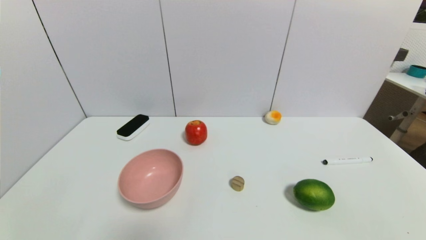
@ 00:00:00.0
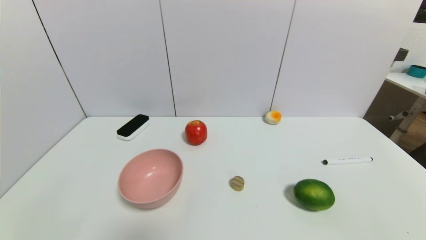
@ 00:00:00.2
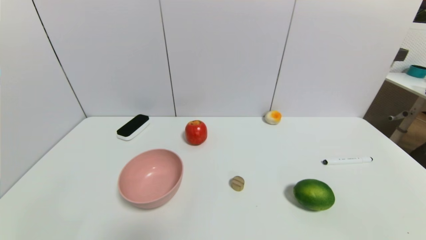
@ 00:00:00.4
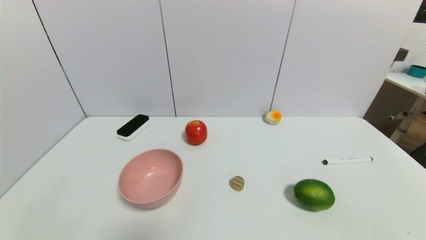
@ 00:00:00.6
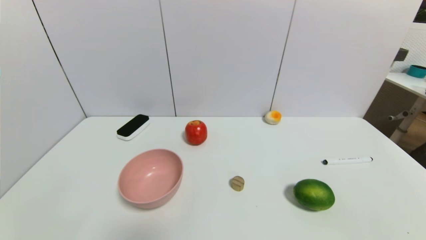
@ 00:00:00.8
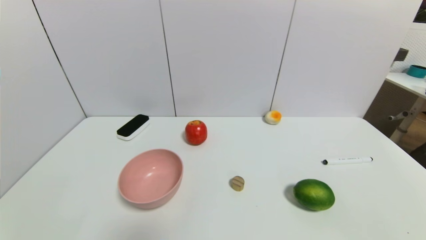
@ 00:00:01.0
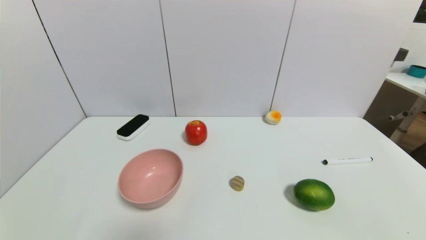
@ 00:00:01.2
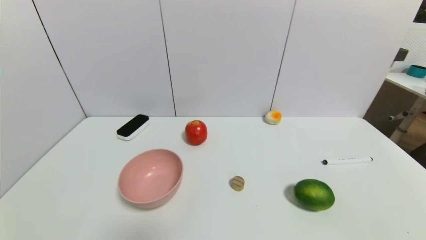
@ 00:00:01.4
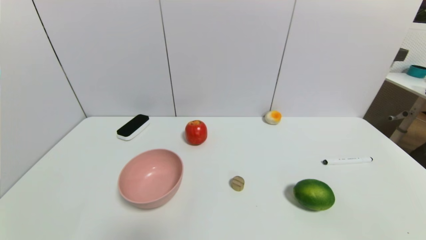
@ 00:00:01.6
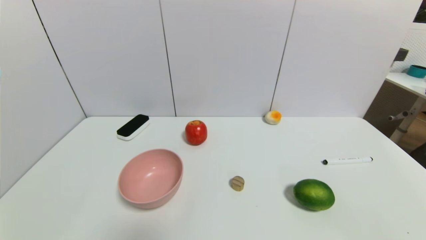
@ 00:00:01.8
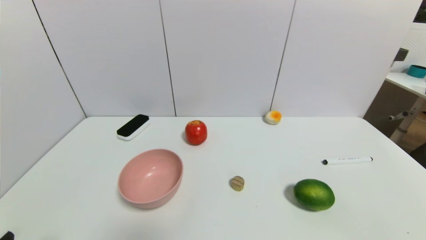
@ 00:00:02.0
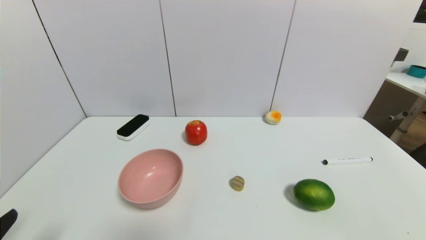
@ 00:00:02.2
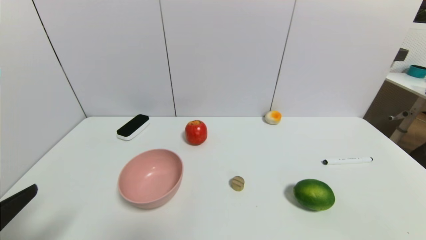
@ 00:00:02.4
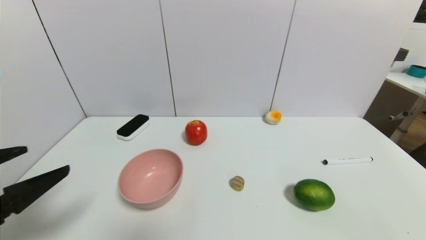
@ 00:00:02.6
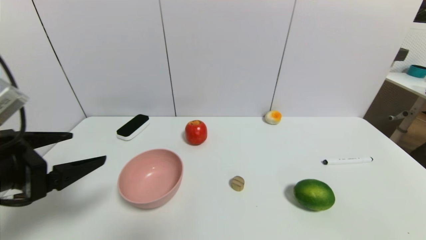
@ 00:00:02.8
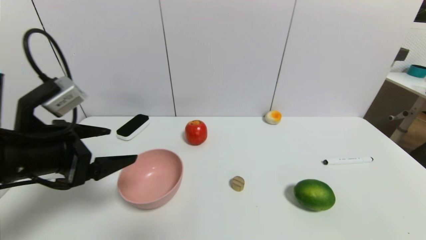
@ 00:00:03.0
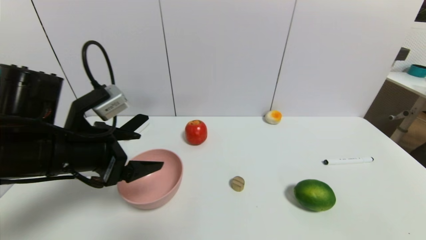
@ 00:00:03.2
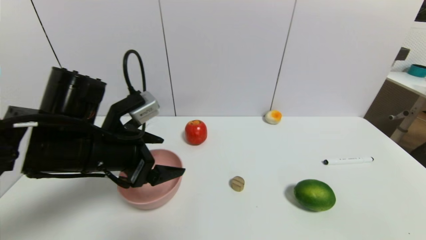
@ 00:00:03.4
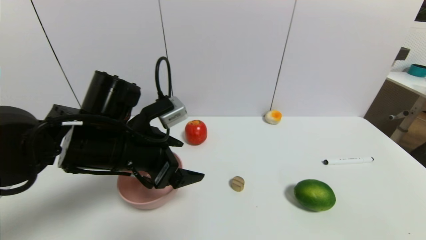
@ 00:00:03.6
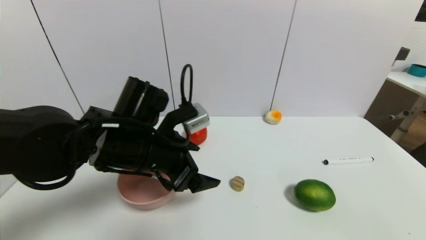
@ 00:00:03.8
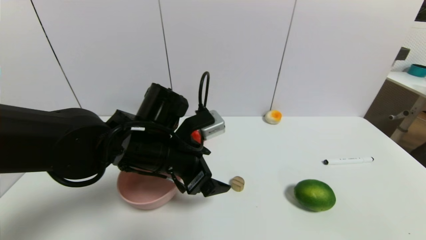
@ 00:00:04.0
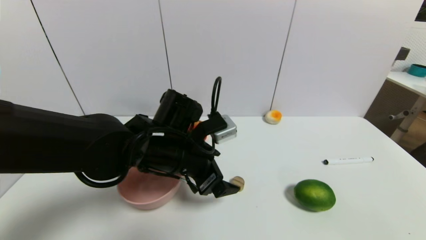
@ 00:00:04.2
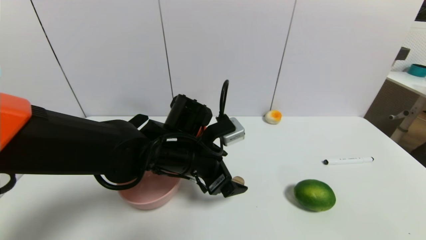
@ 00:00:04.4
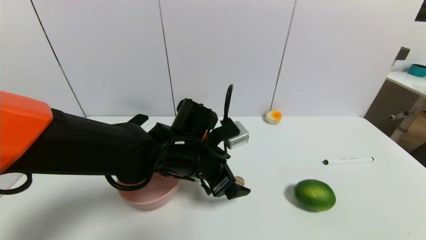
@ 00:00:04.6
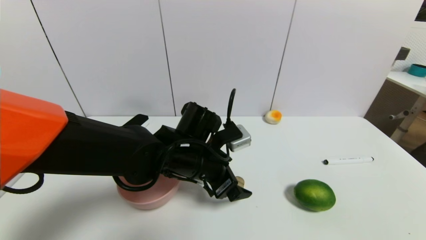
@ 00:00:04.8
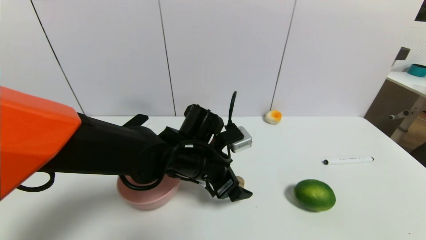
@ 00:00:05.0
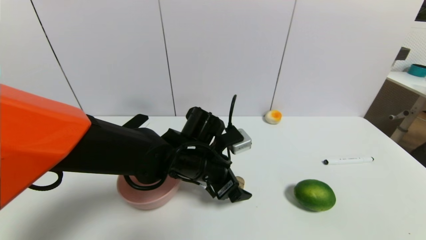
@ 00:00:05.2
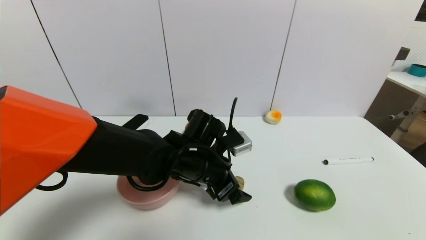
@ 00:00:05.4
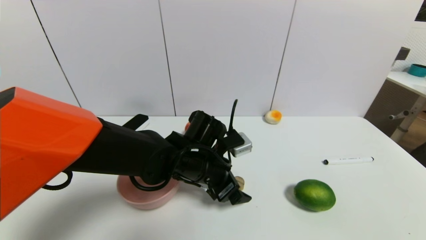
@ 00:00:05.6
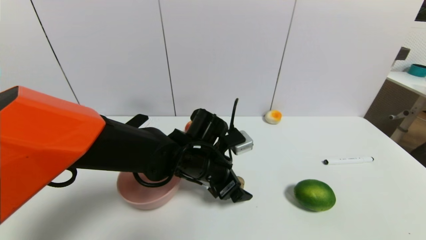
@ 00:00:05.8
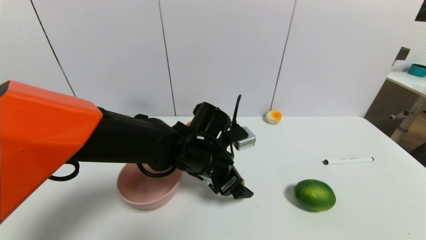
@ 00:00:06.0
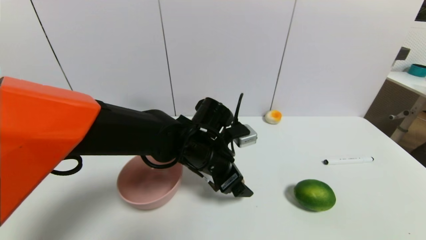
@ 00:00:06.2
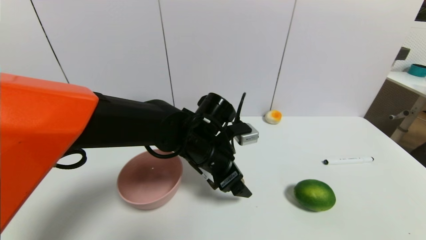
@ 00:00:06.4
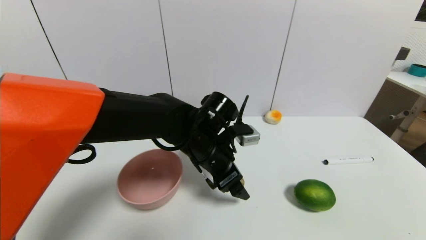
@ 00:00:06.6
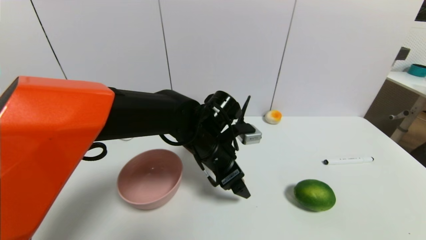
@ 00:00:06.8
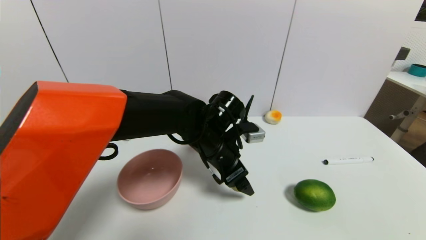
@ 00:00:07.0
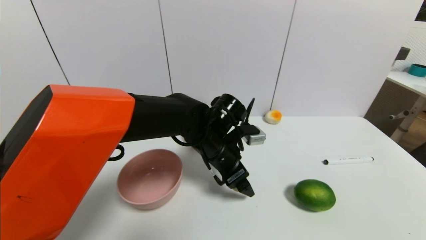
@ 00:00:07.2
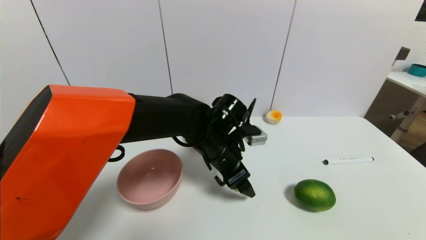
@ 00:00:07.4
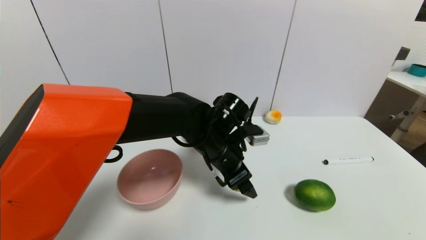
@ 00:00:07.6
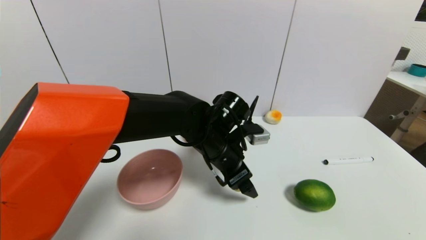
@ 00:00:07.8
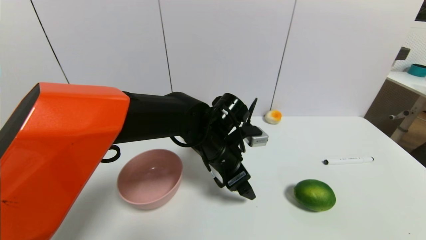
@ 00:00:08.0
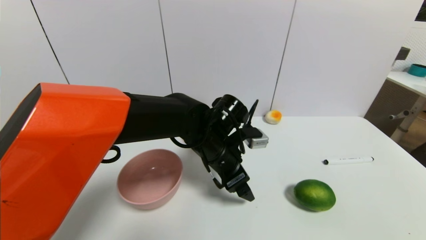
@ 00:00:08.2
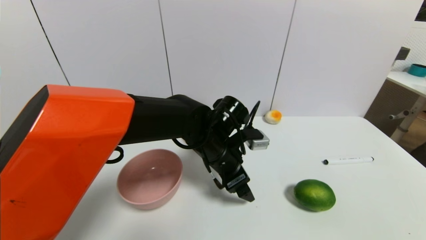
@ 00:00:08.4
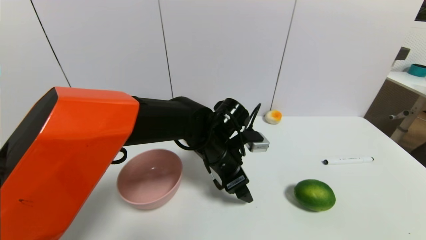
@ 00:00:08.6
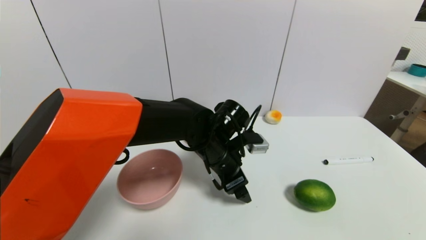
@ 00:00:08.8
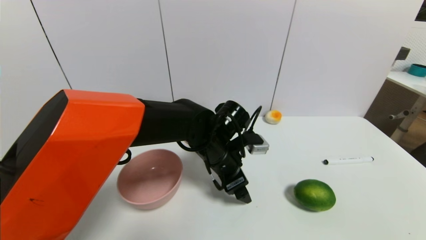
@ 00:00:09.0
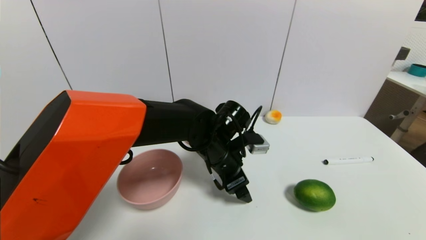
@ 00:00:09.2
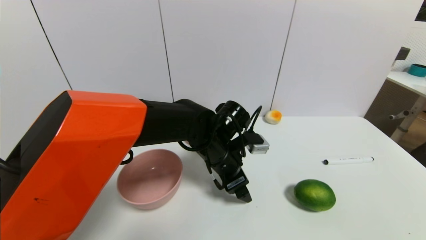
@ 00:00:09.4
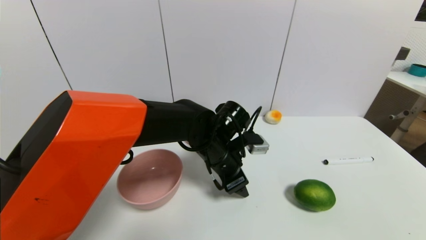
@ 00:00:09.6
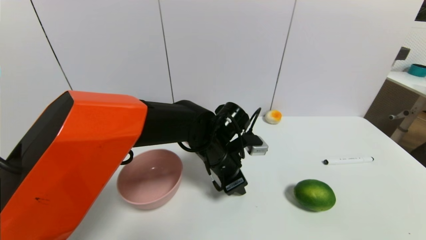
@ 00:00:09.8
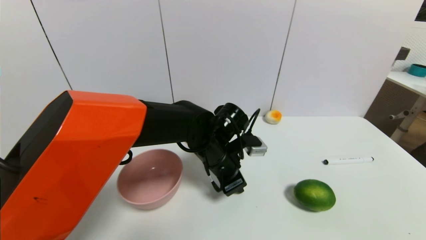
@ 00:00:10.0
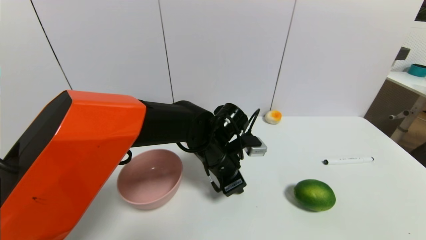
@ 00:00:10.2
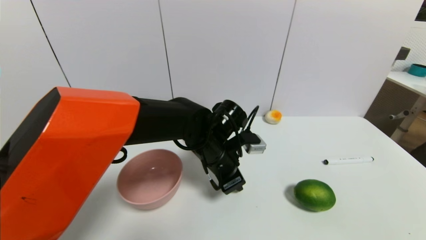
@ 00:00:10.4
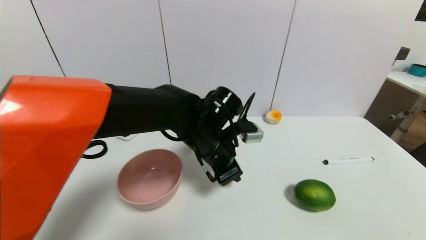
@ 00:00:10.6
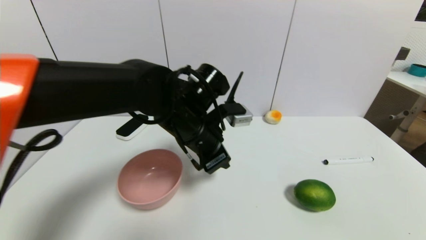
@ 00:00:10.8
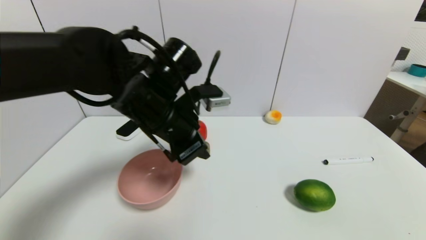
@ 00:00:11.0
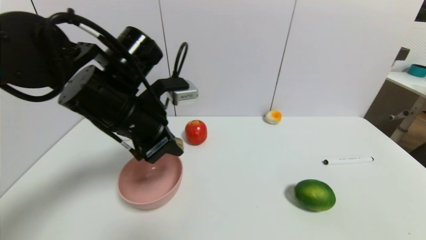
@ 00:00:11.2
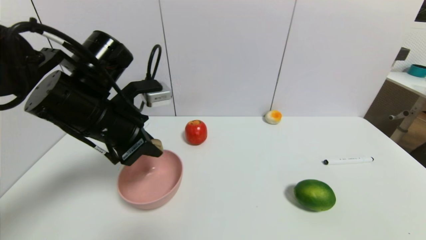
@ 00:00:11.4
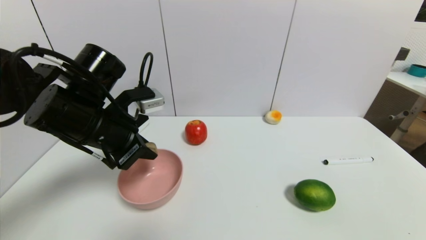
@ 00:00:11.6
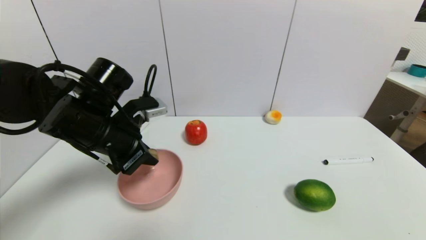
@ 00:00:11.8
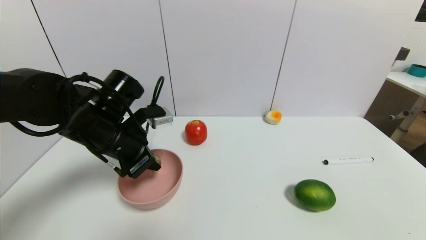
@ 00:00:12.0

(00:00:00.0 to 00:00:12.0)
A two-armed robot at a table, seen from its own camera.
Task of the whole recording: use a gripper to pick the target object and place on the pink bowl.
Step, 00:00:00.0 - 00:00:09.8: Grasp the round wooden block with the left gripper.
00:00:01.6 - 00:00:03.0: The left gripper goes approximately 25 cm forward and upward.
00:00:03.0 - 00:00:04.4: The left gripper moves to the right and forward, approximately 20 cm.
00:00:04.4 - 00:00:06.0: The grippers make only small movements.
00:00:07.6 - 00:00:09.0: The grippers move only a little.
00:00:09.0 - 00:00:10.4: The left gripper closes.
00:00:10.4 - 00:00:12.0: The left gripper travels to the left by approximately 20 cm.

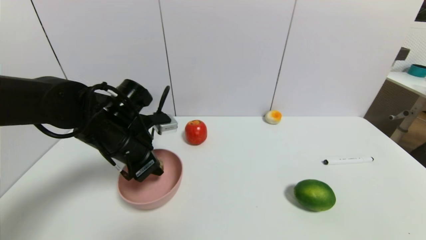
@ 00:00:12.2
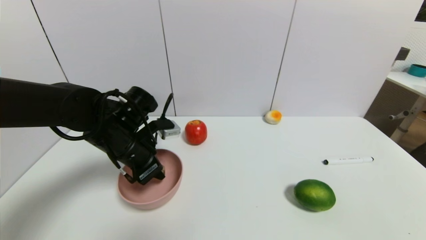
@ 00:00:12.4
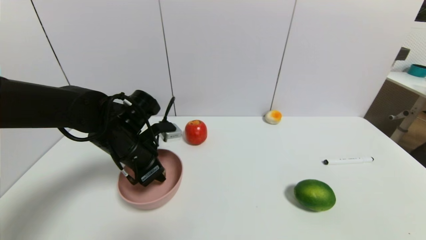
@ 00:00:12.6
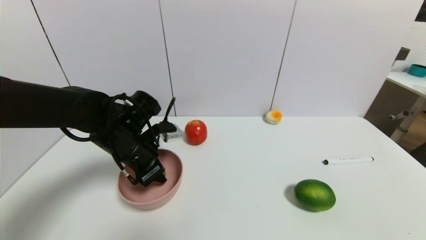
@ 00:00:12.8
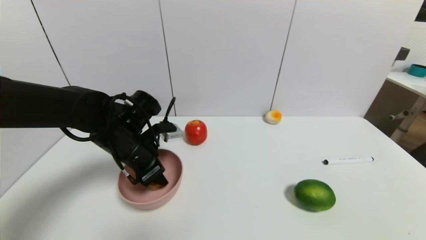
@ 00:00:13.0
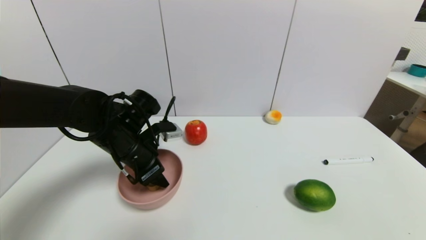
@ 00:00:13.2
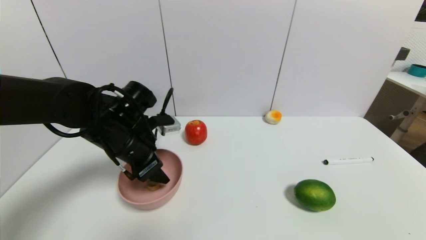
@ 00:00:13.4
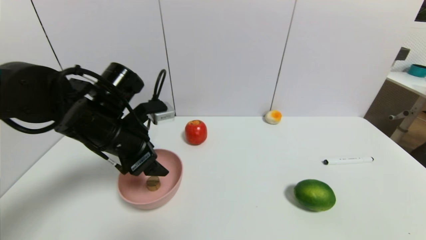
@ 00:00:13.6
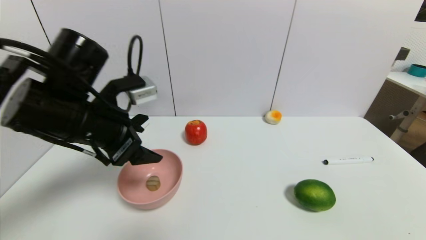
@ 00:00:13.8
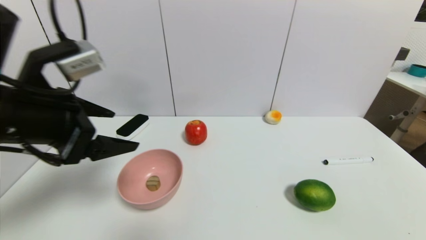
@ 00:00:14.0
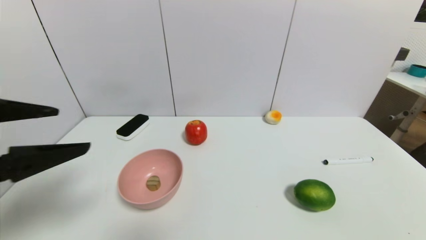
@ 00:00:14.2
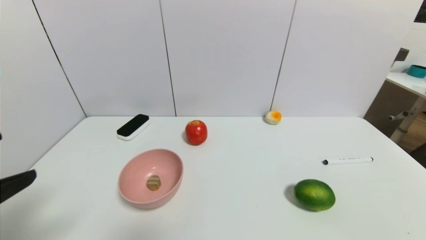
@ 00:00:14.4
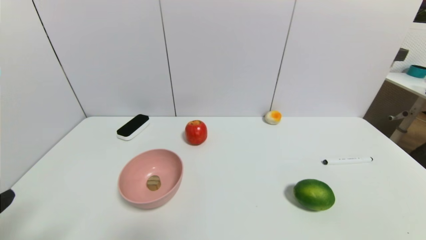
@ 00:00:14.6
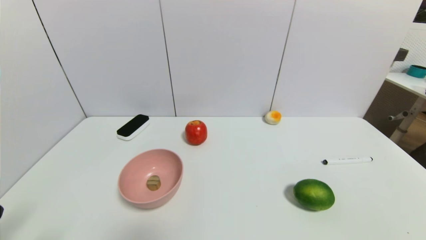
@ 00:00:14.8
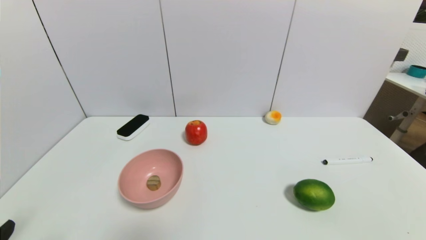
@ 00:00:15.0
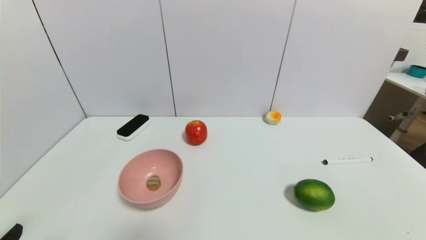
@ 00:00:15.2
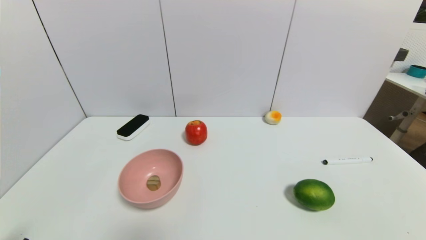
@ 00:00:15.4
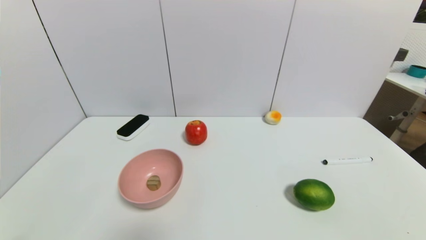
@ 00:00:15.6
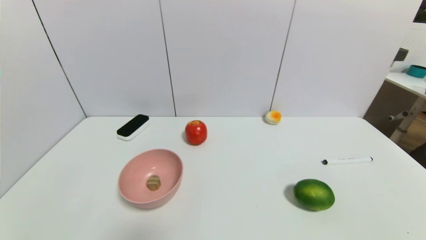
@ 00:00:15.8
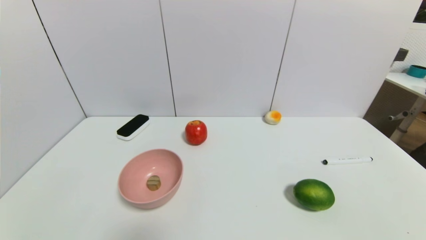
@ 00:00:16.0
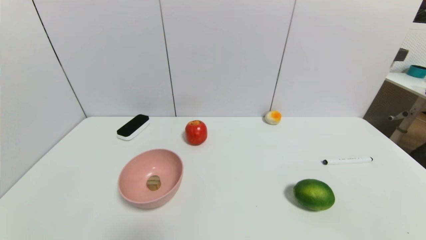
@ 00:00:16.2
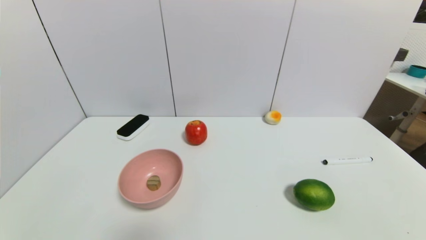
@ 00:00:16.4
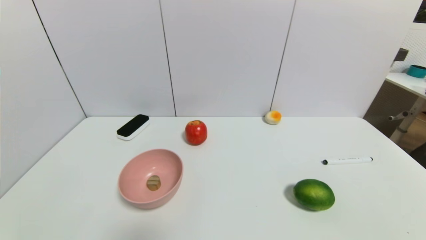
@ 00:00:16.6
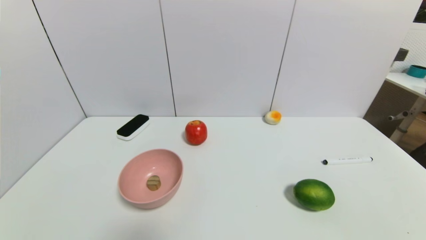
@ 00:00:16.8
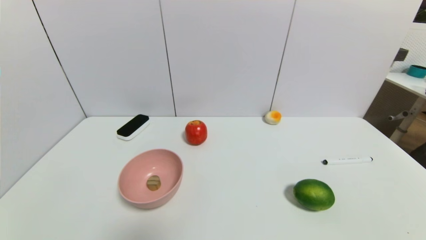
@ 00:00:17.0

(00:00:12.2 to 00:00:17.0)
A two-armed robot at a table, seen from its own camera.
Task of the whole recording: use a gripper to pick the target object and place on the pink bowl.
00:00:12.2 - 00:00:13.8: The left gripper moves upward and backward, roughly 10 cm, and opens.
00:00:13.8 - 00:00:15.4: The left gripper heads backward, downward and to the left, covering some 30 cm.
